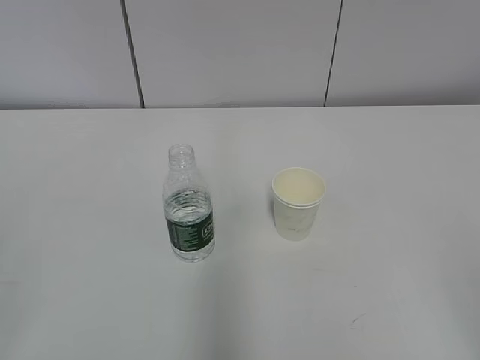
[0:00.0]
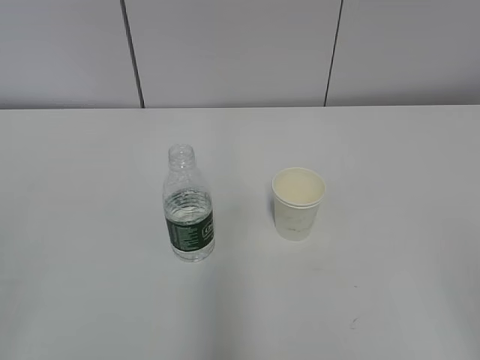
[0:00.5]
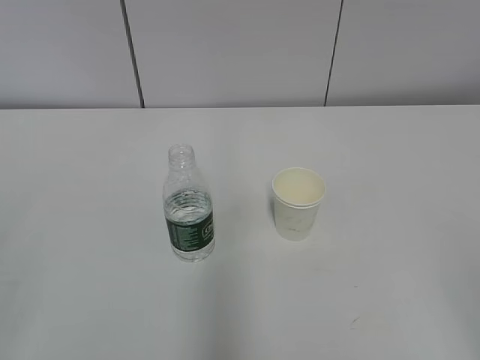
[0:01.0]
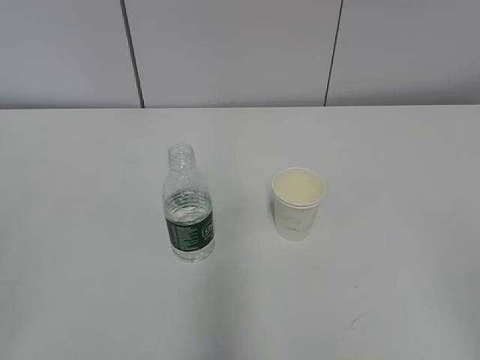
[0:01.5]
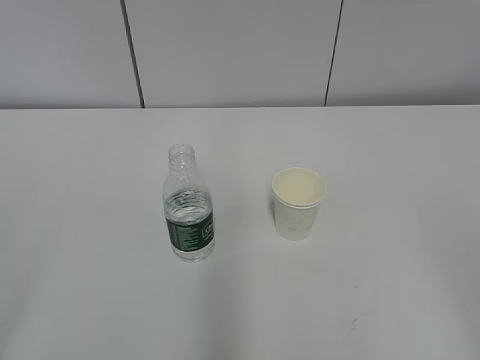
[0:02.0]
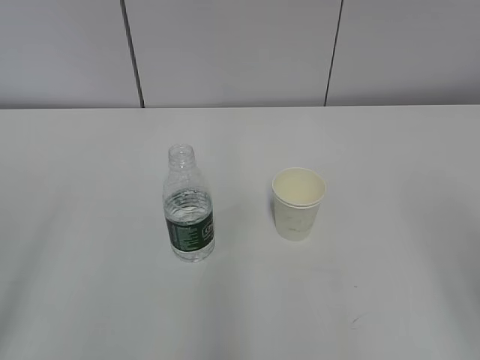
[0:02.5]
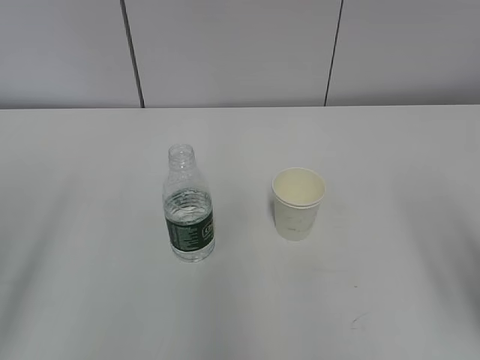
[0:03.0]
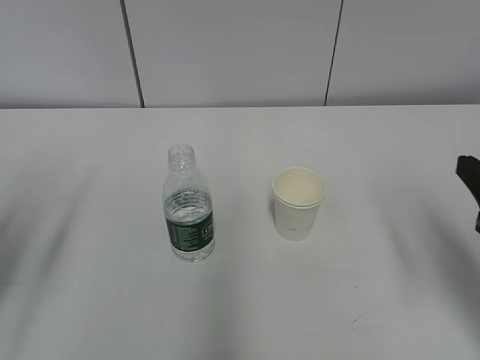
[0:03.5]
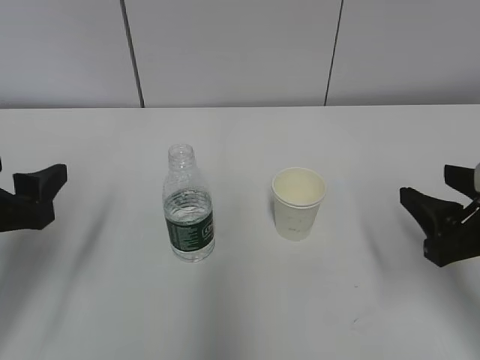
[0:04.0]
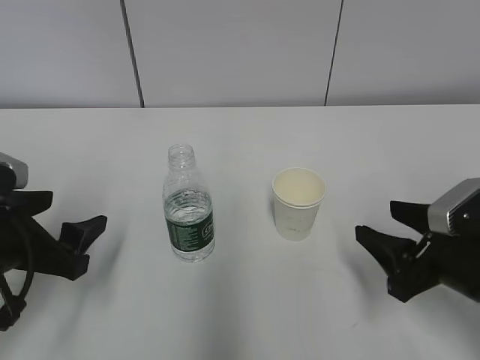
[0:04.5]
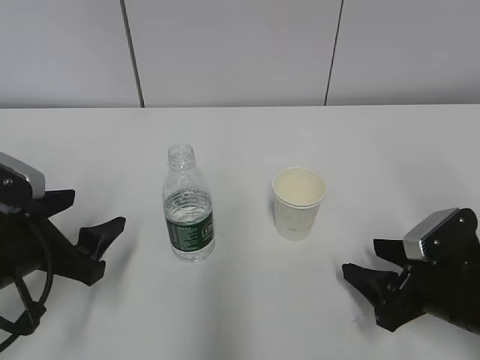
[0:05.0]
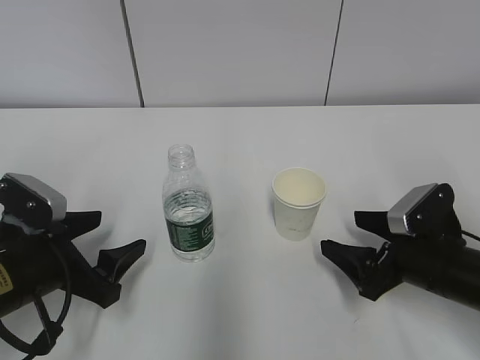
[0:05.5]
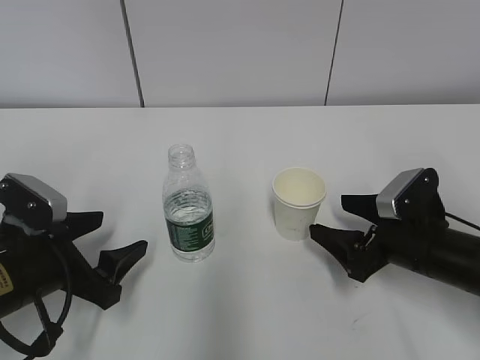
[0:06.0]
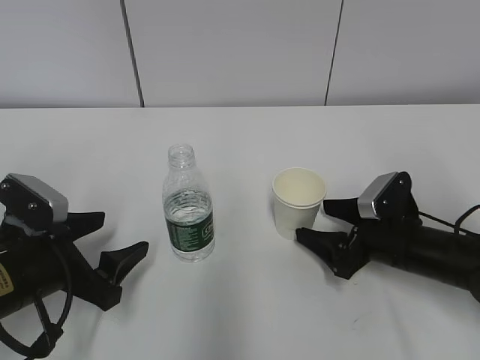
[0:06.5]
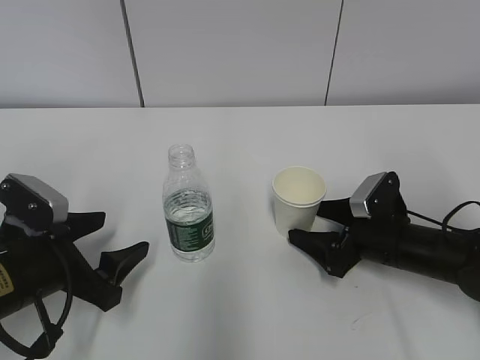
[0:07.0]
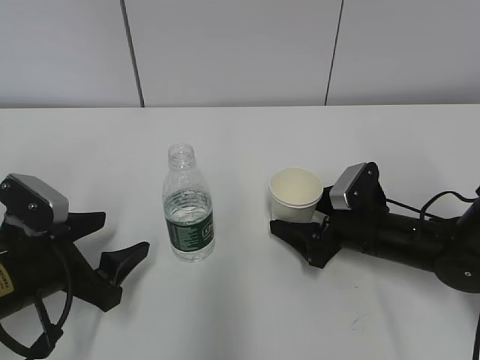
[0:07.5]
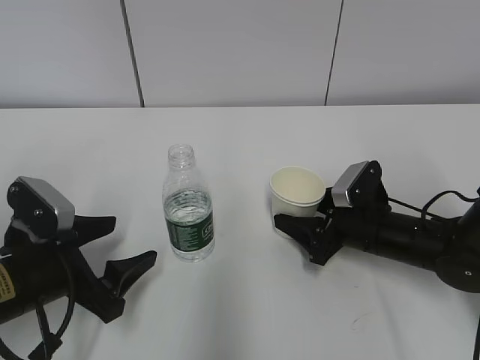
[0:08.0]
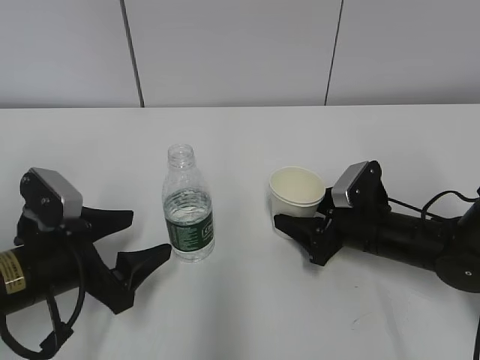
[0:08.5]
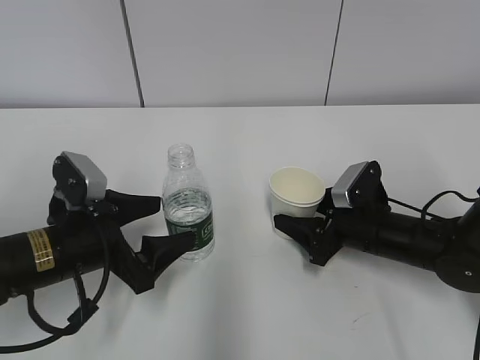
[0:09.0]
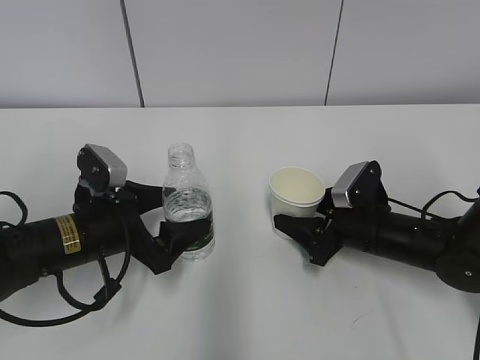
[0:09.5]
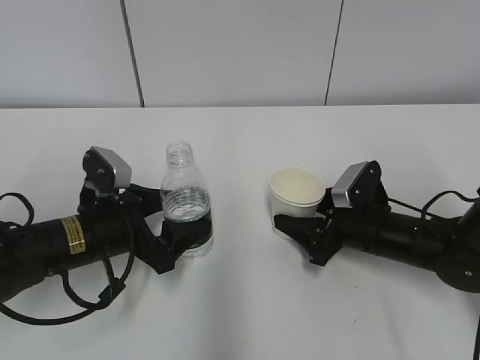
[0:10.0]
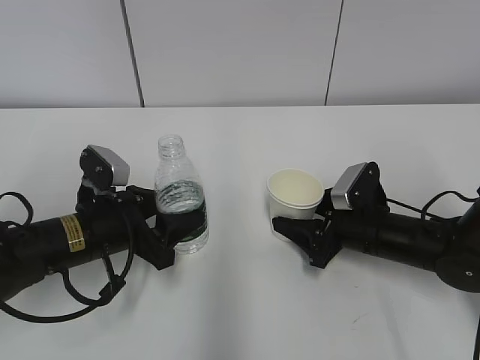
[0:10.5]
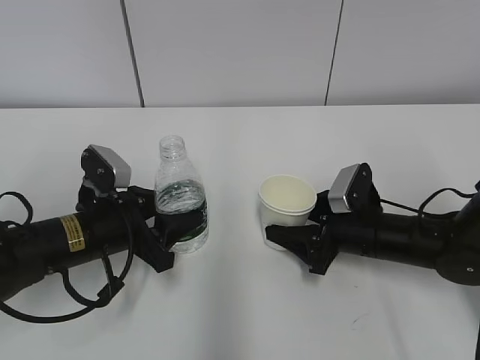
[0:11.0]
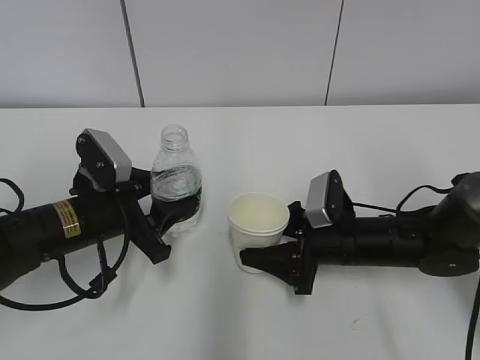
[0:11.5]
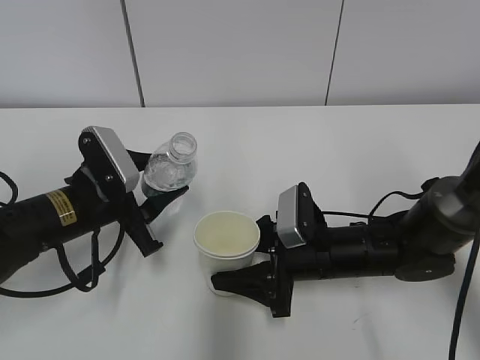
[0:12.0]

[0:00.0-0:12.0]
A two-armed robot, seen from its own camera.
Step, 0:00.0 to 0:08.0: Grab the paper cup with the right hand.
Step, 0:08.5 to 0:09.0: Grab the water bottle with the left hand.
Step, 0:09.5 to 0:11.0: Lift the paper cup with the right hand.
0:02.0 to 0:04.0: The left gripper is displaced forward by roughly 20 cm, while the right gripper travels forward and downward by approximately 25 cm.
0:04.0 to 0:06.0: The left gripper is displaced downward by about 10 cm. The right gripper goes roughly 10 cm downward and forward, and opens.
0:06.0 to 0:08.0: The right gripper is displaced forward by approximately 5 cm, and closes.
0:08.0 to 0:10.0: The left gripper moves forward, some 5 cm.
0:10.0 to 0:12.0: The left gripper closes up, while the right gripper goes some 10 cm to the left.

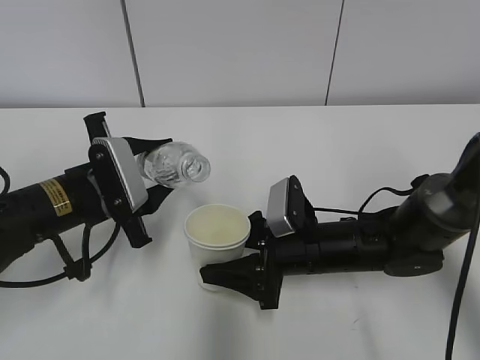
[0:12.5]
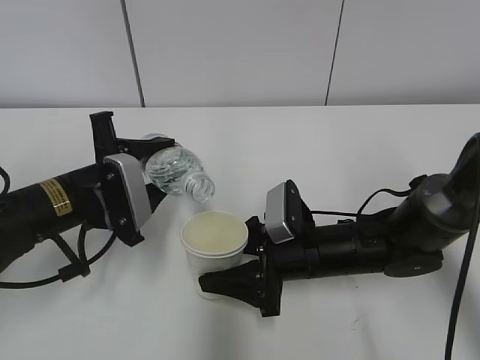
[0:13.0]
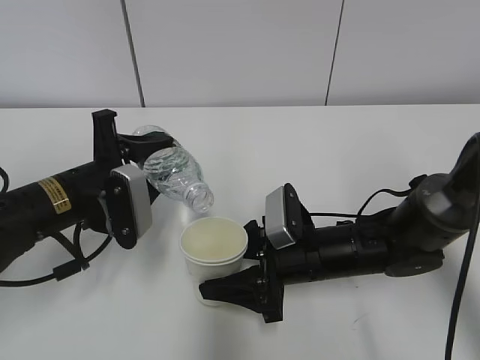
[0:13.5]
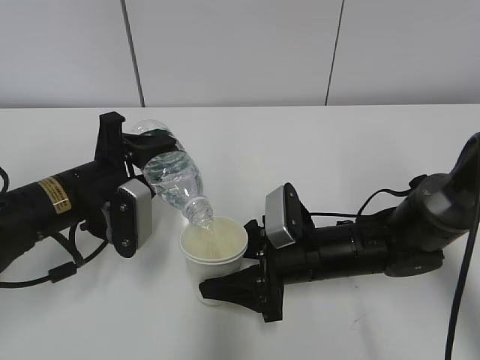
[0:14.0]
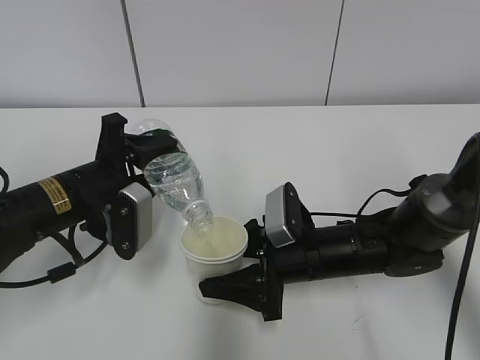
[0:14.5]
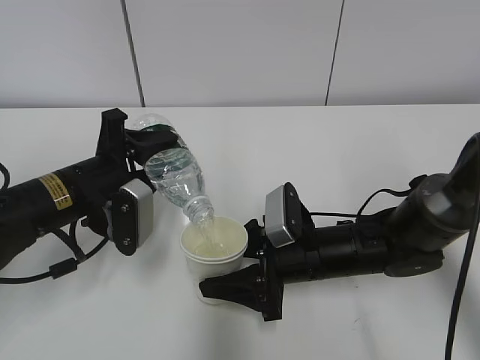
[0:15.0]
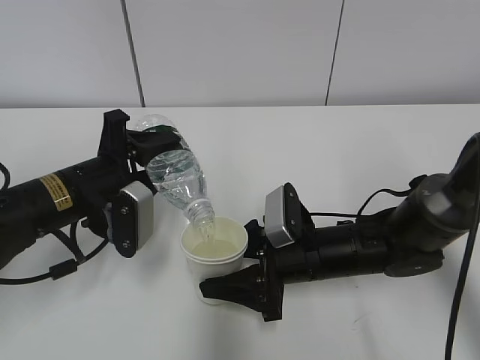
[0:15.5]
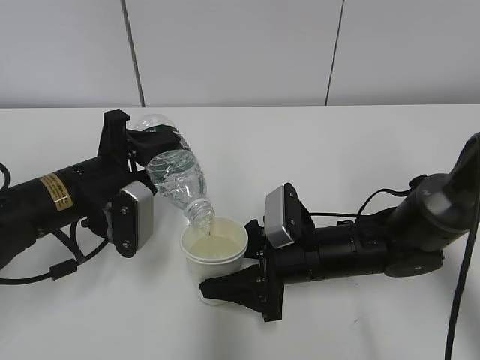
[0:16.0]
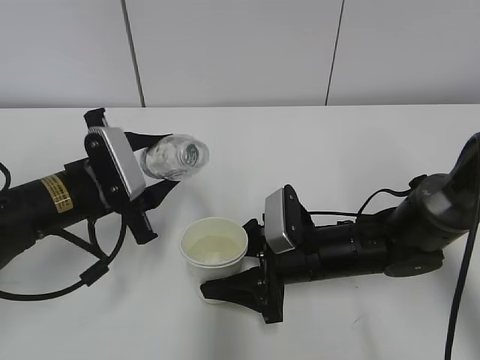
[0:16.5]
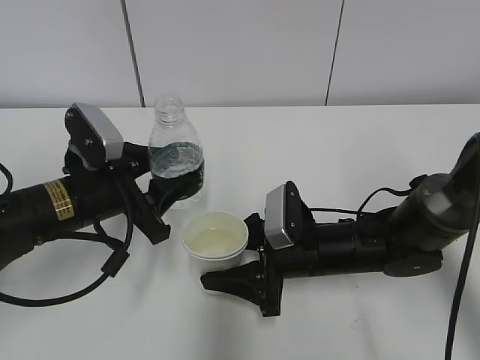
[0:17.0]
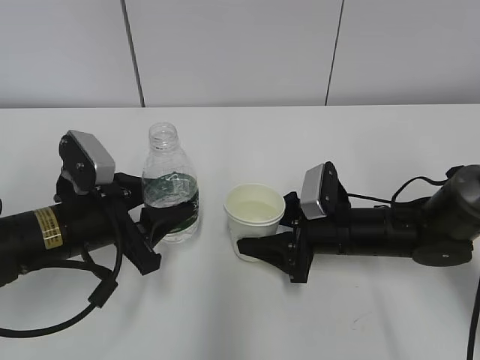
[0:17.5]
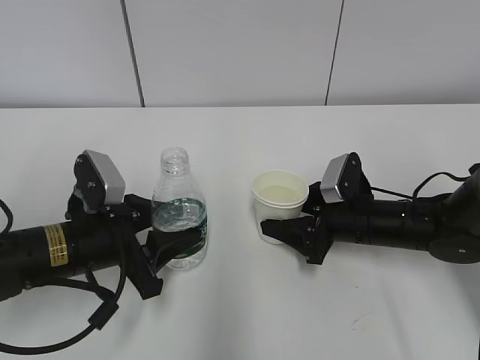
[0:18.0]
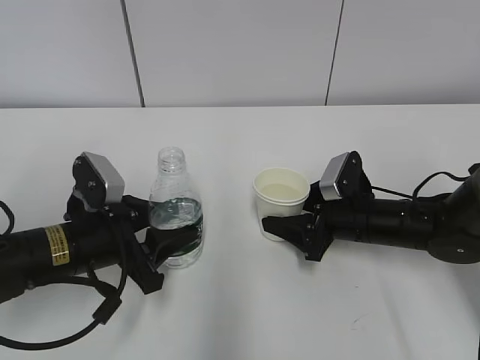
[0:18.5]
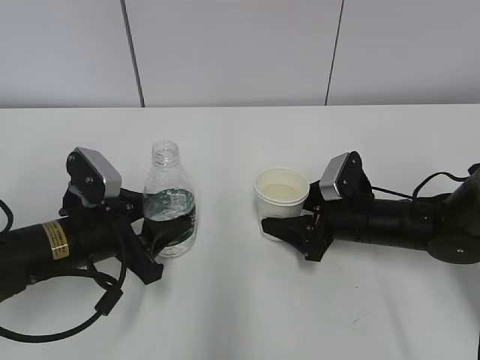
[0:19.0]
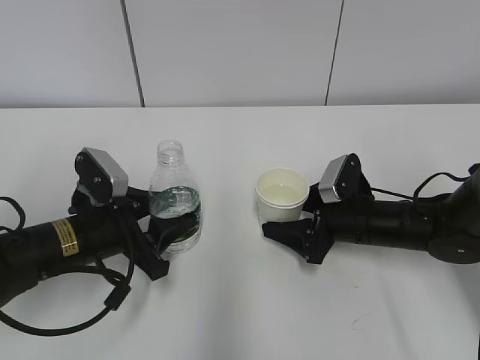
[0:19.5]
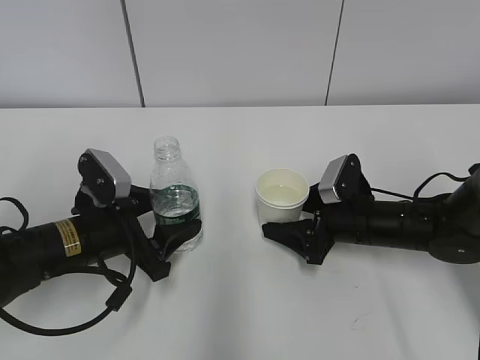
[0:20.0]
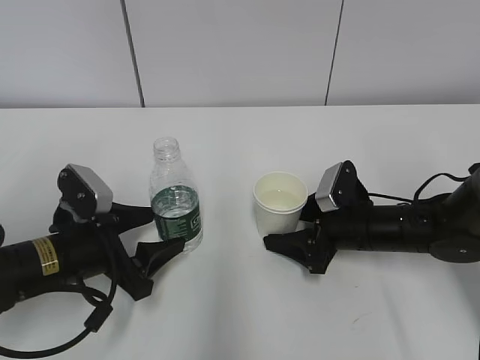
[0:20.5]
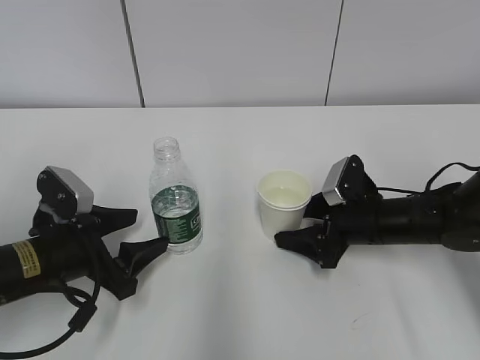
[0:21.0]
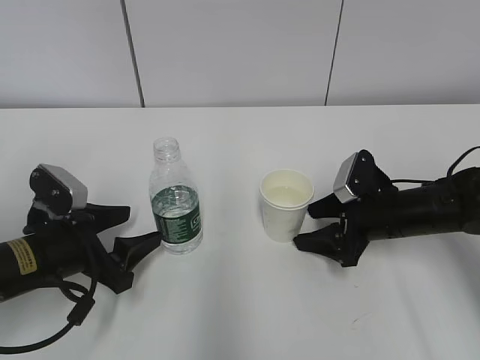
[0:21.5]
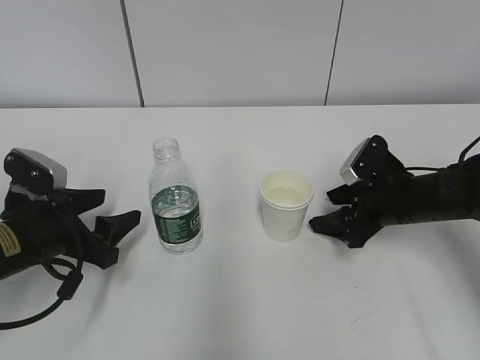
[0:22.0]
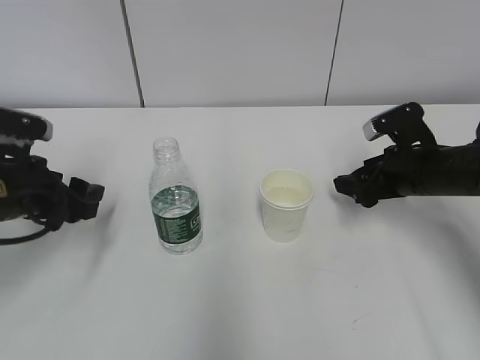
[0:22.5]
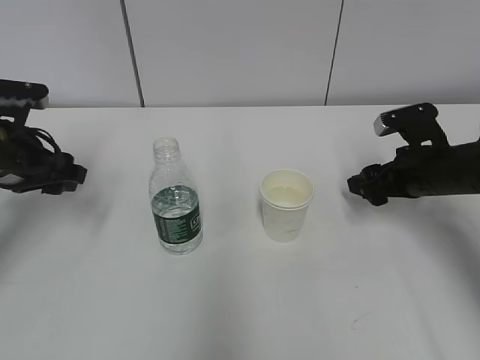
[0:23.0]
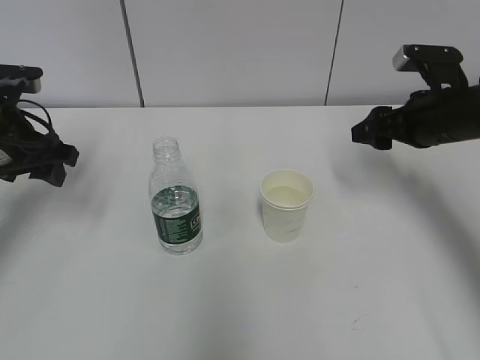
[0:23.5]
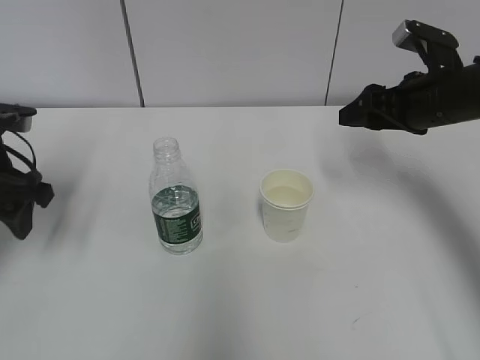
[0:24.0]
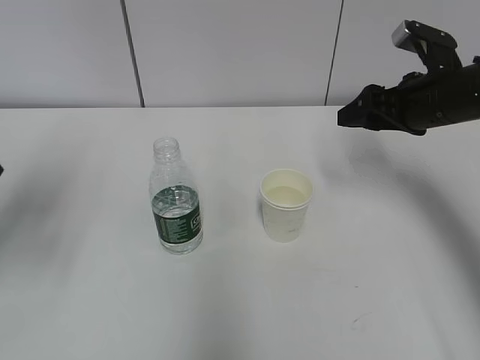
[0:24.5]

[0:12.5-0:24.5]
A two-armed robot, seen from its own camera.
Step, 0:14.5 to 0:16.5: Place the water bottle with the left hand.
Step, 0:17.0 to 0:17.5: Place the paper cup with the right hand.
0:16.5 to 0:18.5: The right gripper goes some 10 cm to the right. The left gripper ends up roughly 5 cm from where it was.
0:18.5 to 0:20.5: The left gripper opens up; the right gripper opens its fingers.
0:20.5 to 0:22.5: The left gripper is displaced to the left and upward by some 10 cm. Meanwhile the right gripper travels upward and to the right by approximately 10 cm.
0:22.5 to 0:24.5: Both grippers move upward, approximately 10 cm.

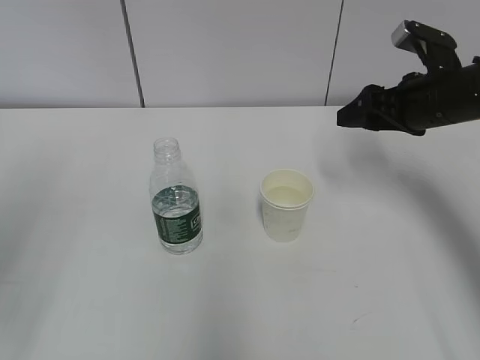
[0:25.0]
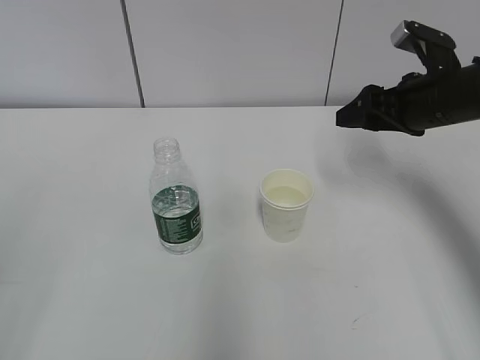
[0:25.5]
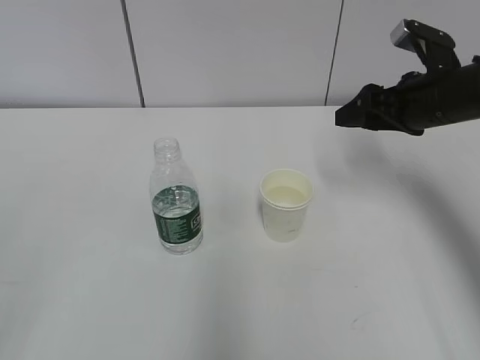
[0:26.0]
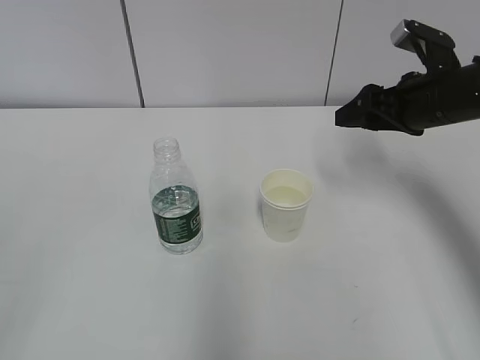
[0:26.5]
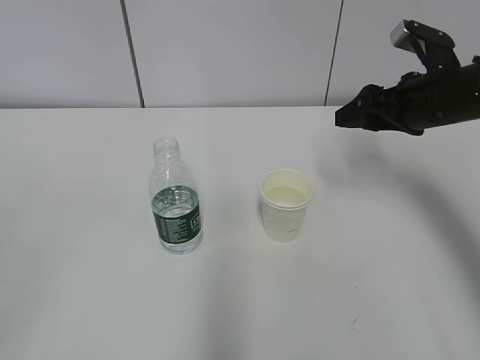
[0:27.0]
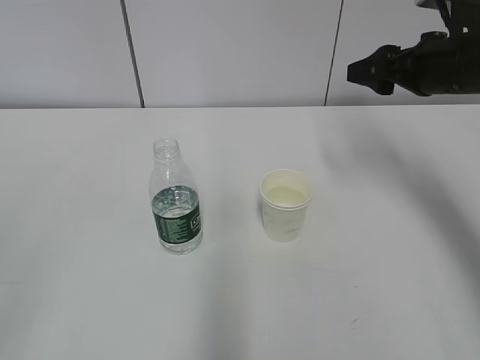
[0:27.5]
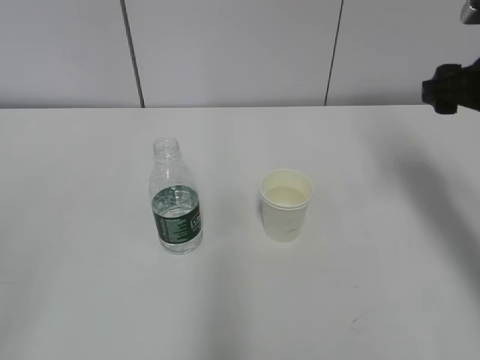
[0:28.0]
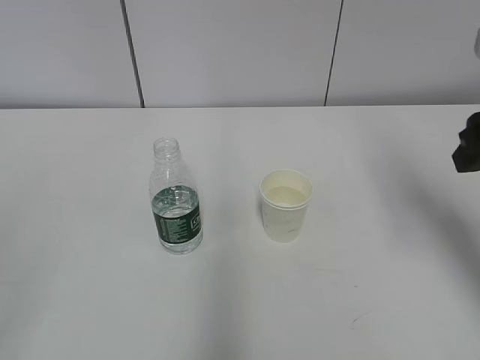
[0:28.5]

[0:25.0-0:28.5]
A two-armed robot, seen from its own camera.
0:27.0 to 0:28.5: The right gripper is displaced backward and upward by about 15 cm.
